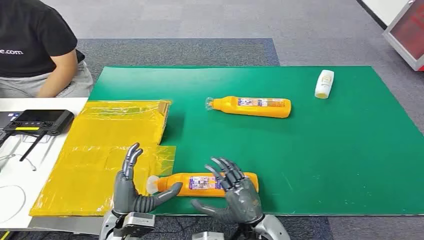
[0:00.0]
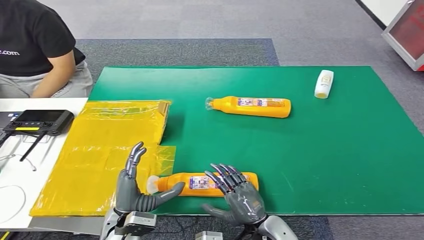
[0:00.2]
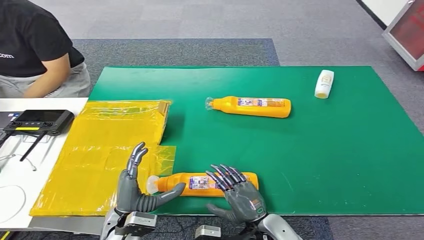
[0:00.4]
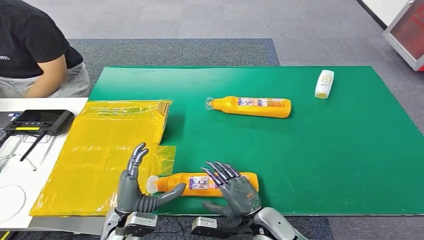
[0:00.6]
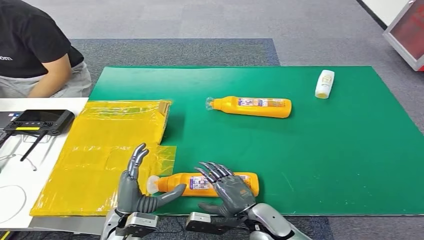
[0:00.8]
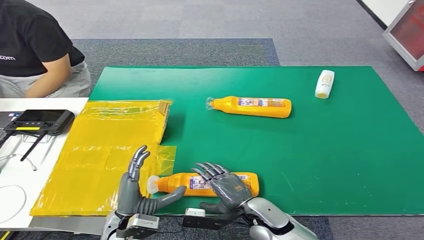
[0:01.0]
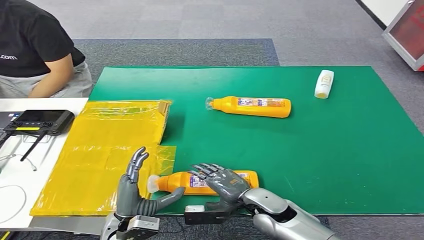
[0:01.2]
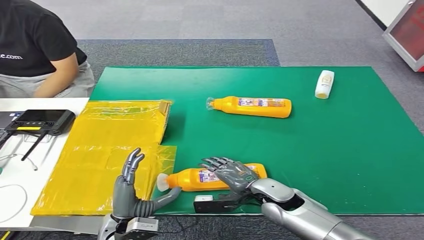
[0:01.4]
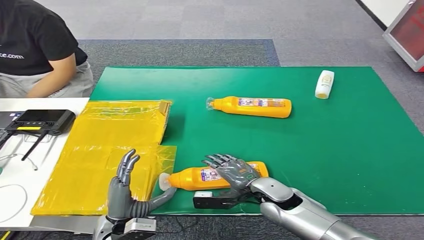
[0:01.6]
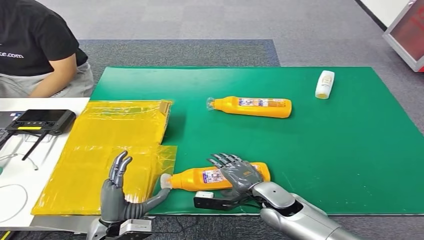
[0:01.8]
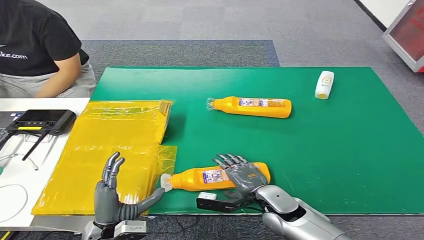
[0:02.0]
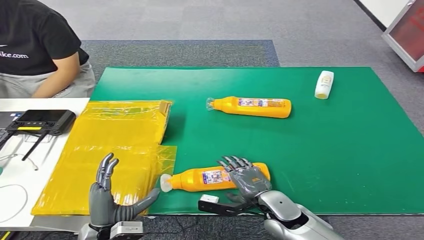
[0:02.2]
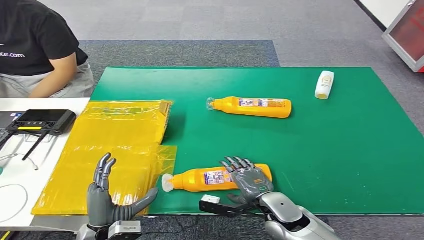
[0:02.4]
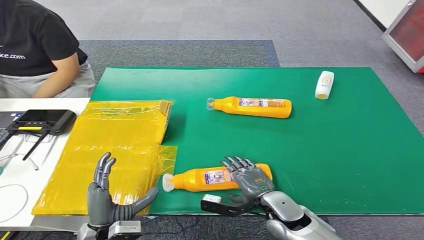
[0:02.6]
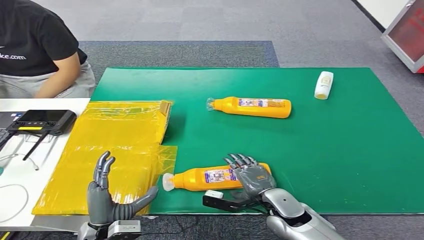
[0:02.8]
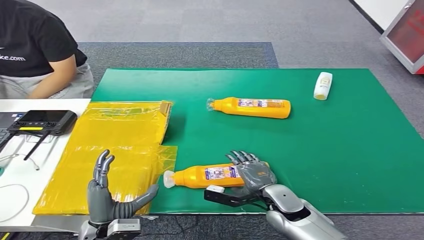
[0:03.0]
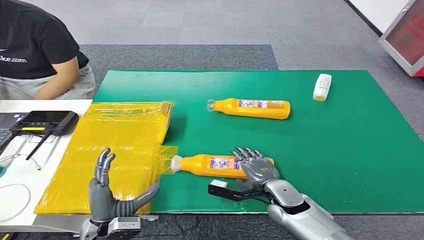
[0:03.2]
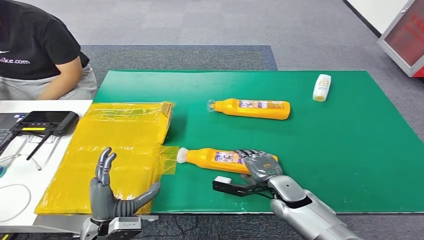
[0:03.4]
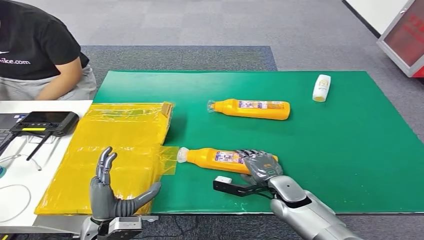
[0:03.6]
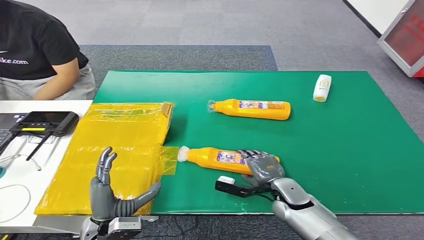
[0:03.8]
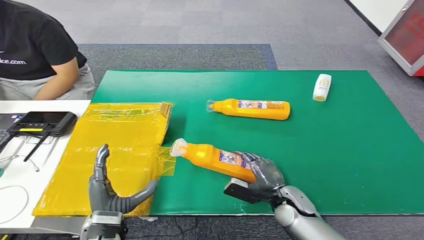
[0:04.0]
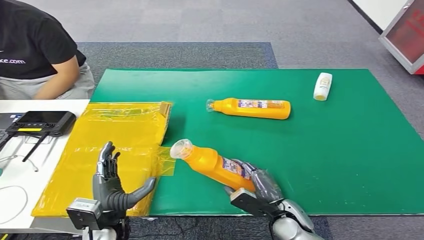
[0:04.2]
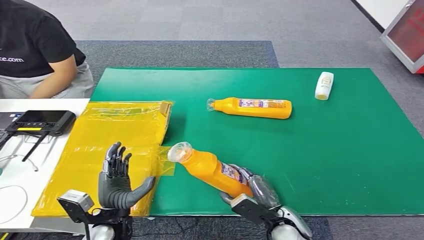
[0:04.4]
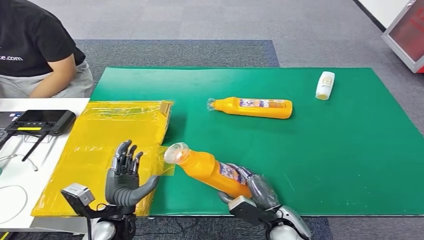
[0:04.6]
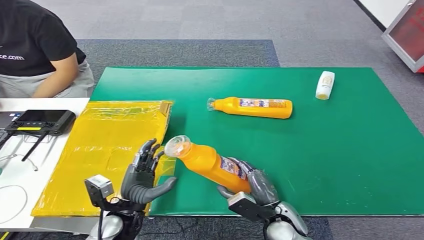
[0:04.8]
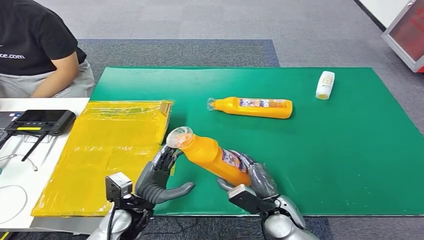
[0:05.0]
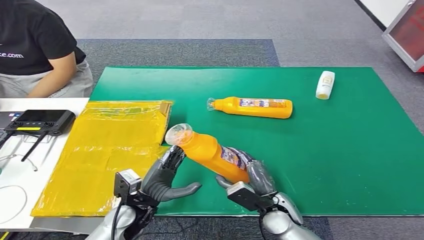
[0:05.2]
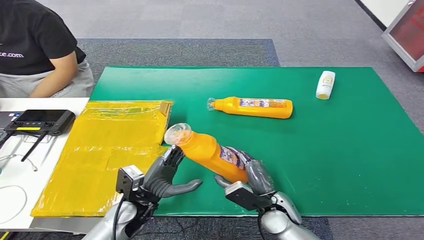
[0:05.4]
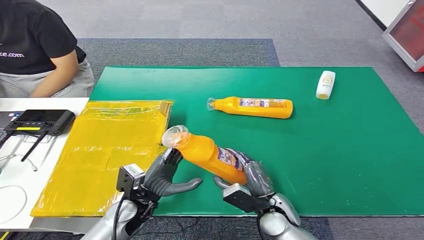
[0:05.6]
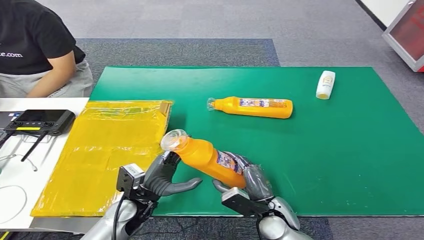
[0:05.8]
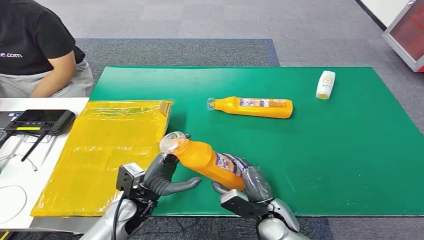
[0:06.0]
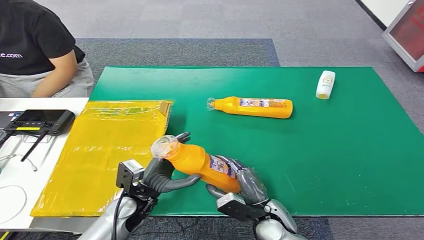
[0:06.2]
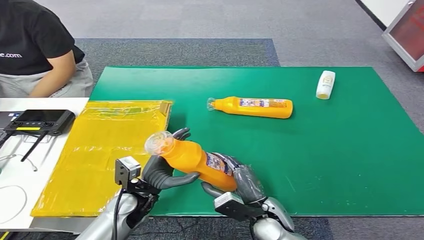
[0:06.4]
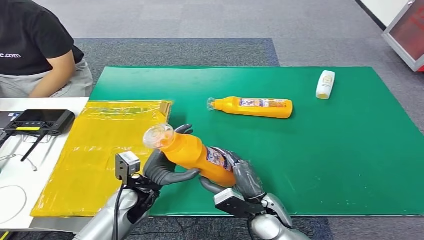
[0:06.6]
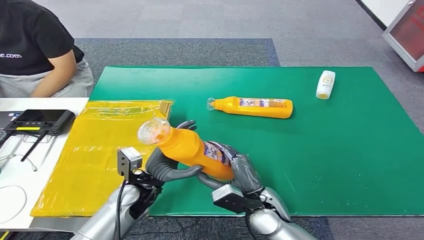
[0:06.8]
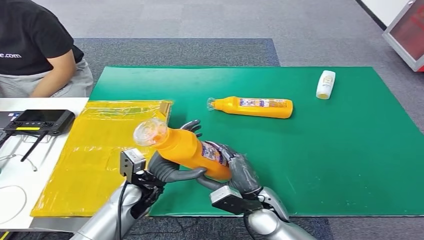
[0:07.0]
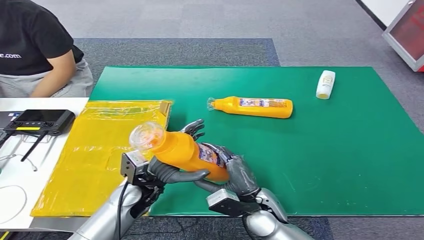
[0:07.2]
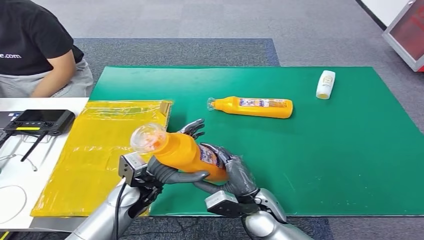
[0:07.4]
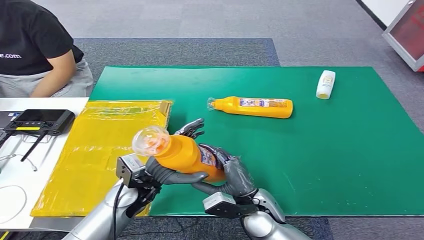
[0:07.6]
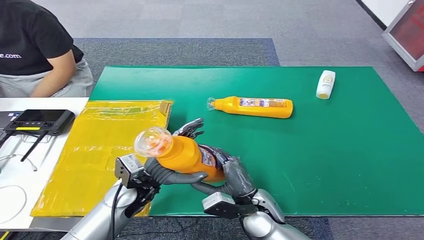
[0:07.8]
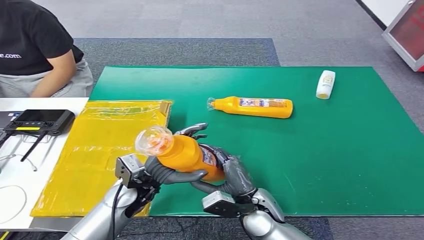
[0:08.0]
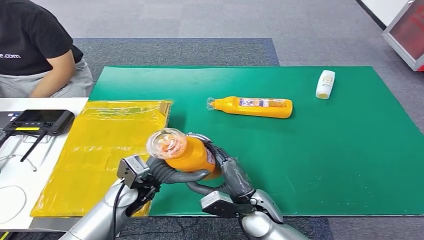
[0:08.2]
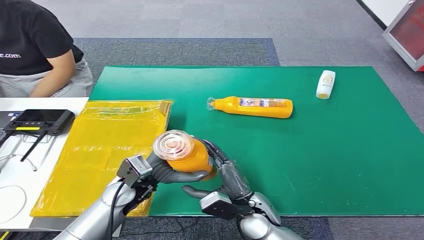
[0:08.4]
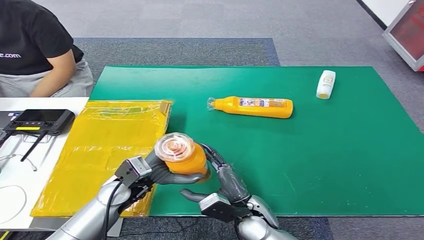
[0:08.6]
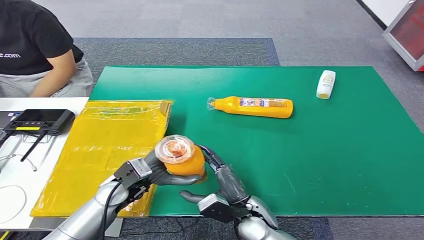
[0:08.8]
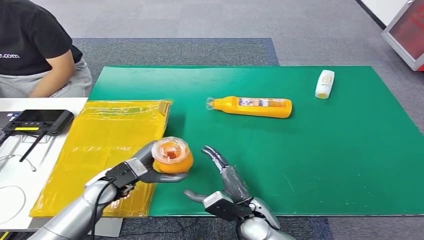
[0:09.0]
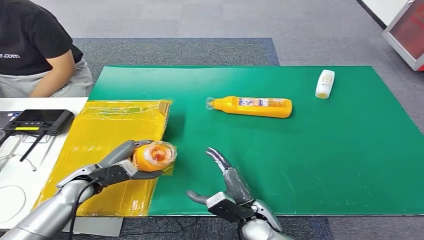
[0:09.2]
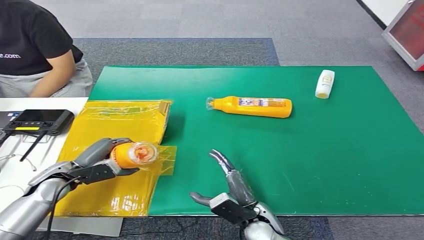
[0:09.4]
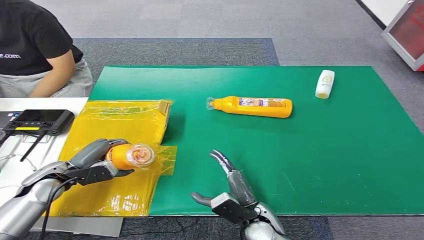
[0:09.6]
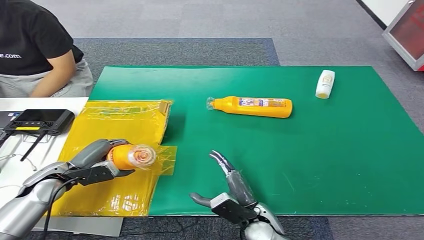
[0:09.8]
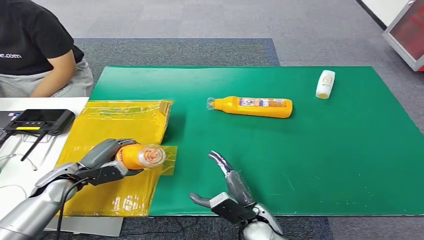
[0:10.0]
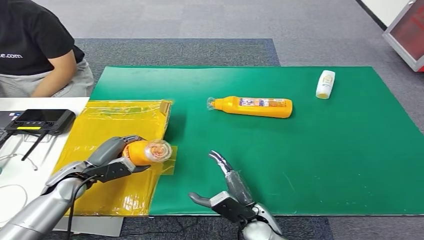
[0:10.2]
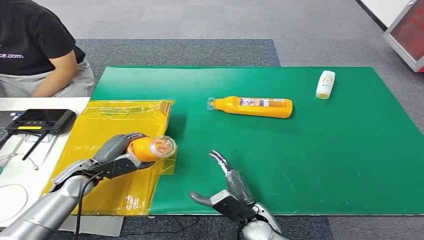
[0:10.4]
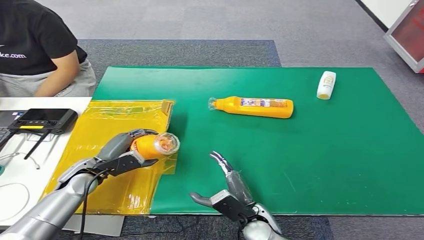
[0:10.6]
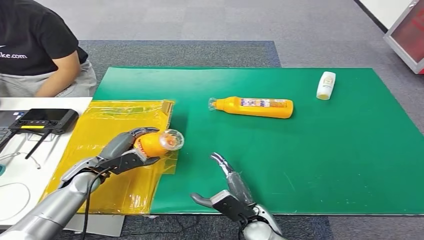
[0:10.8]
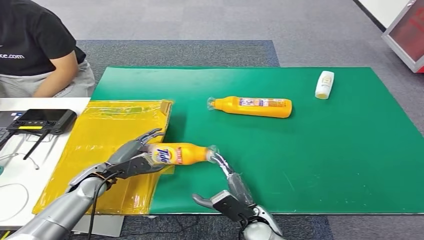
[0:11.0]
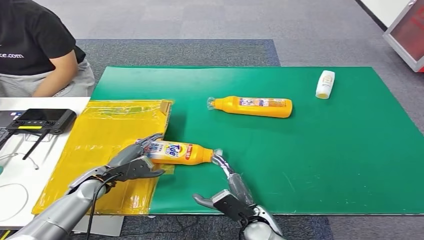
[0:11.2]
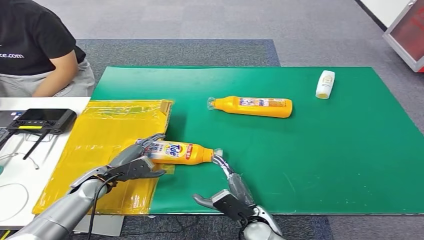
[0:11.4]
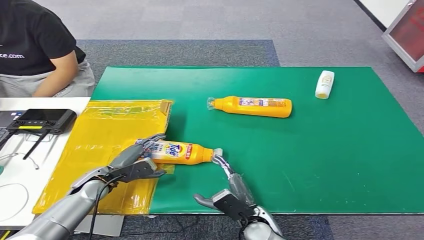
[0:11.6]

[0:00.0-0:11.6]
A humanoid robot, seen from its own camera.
Step, 0:00.0 to 0:04.8: Pick up the bottle from the table.
Step, 0:05.2 to 0:11.6: Turn the bottle to the front side.
0:01.4 to 0:02.8: The hands stay close to where they were, moving slightly.
0:04.4 to 0:05.8: The left hand moves forward, some 5 cm.
0:05.8 to 0:07.2: The left hand changes place by about 5 cm. Meanwhile the right hand shifts by some 5 cm.
0:07.2 to 0:08.8: The hands make only small movements.
0:08.8 to 0:10.2: The left hand moves to the left, roughly 15 cm.
0:10.2 to 0:11.6: The hands make only small movements.

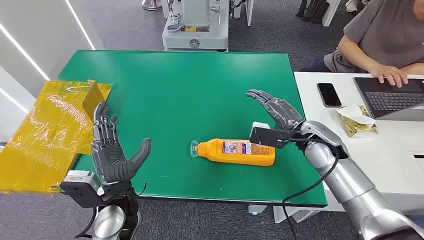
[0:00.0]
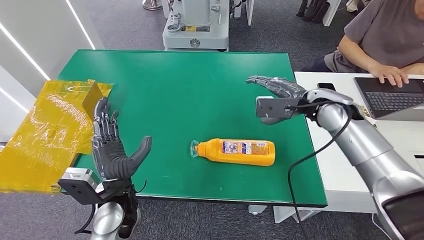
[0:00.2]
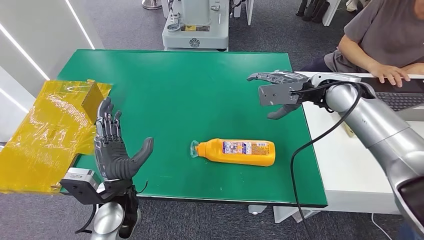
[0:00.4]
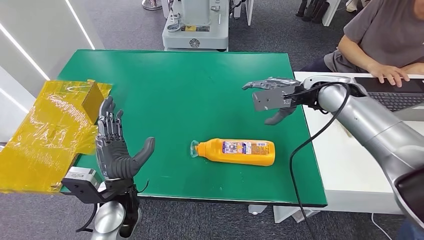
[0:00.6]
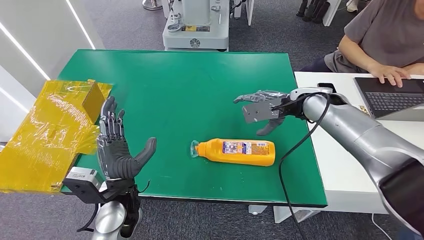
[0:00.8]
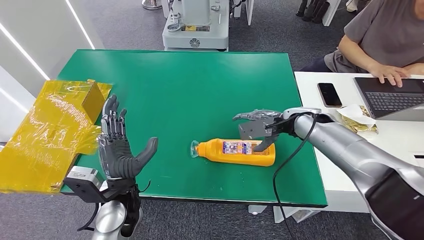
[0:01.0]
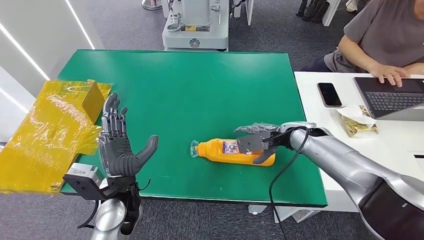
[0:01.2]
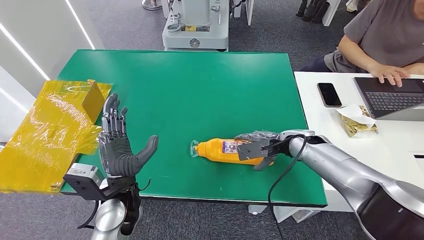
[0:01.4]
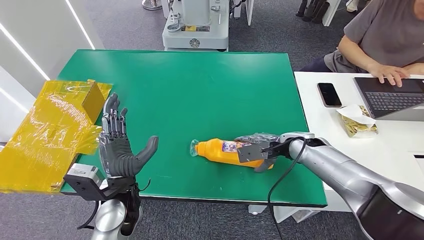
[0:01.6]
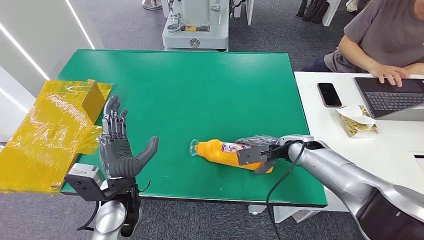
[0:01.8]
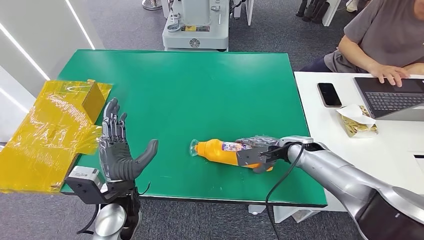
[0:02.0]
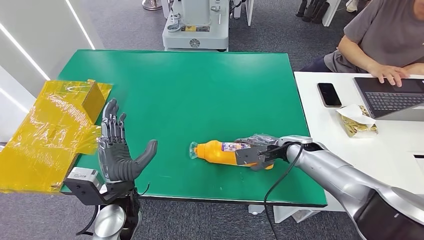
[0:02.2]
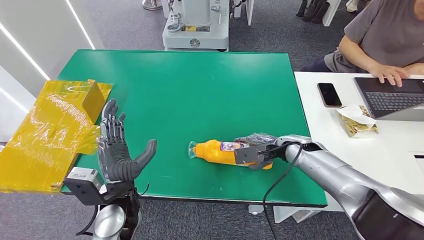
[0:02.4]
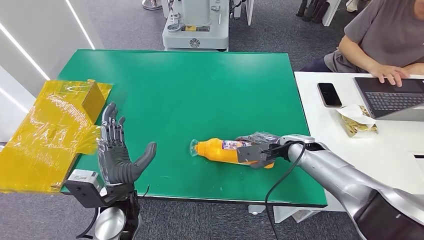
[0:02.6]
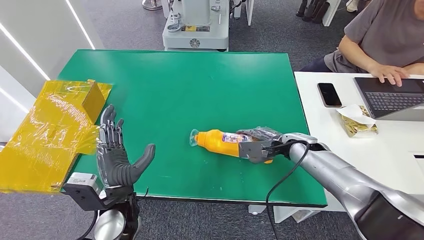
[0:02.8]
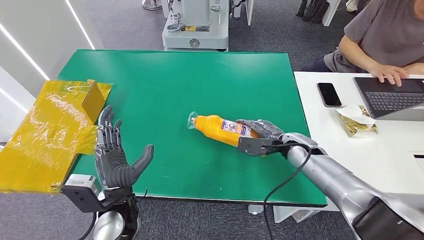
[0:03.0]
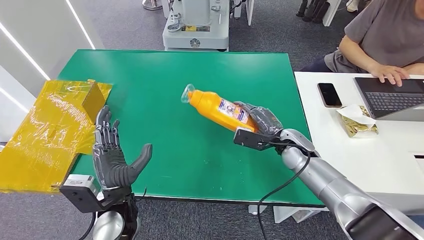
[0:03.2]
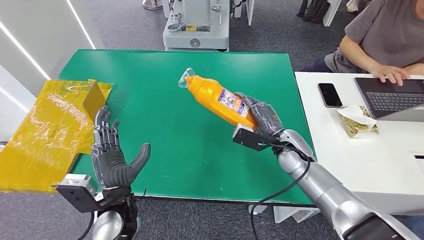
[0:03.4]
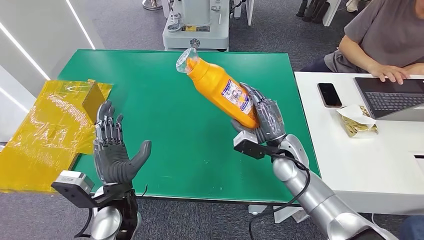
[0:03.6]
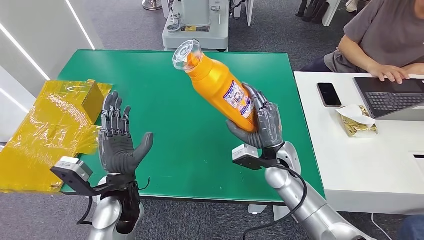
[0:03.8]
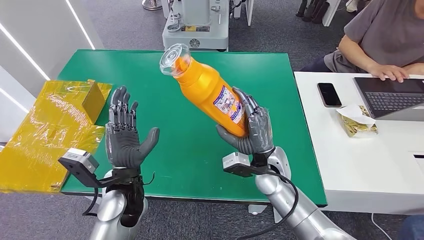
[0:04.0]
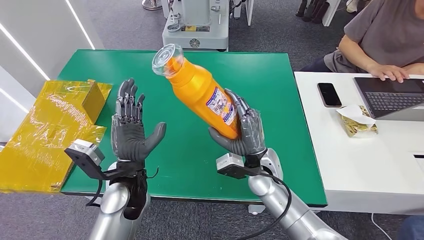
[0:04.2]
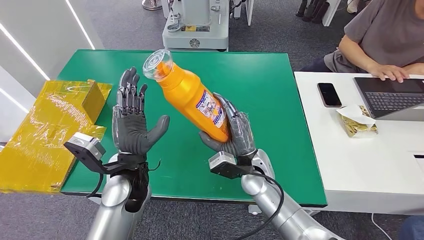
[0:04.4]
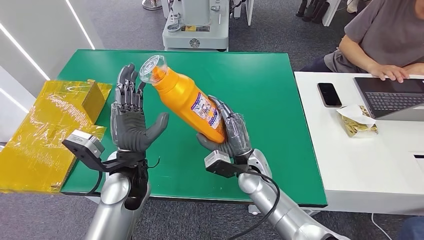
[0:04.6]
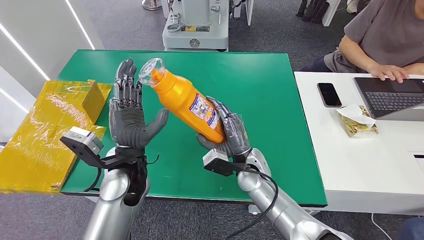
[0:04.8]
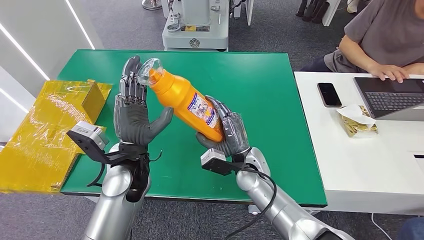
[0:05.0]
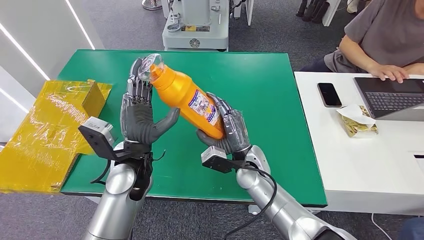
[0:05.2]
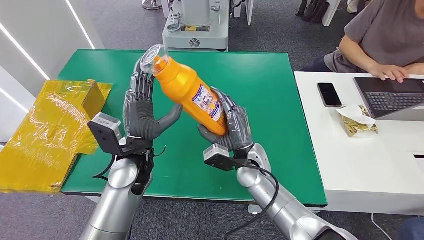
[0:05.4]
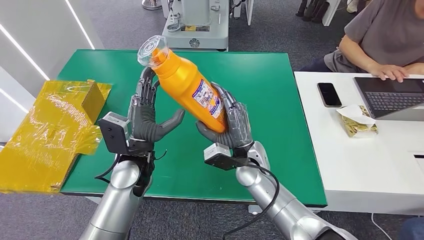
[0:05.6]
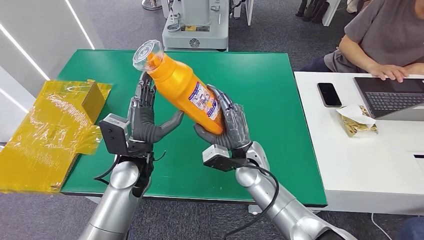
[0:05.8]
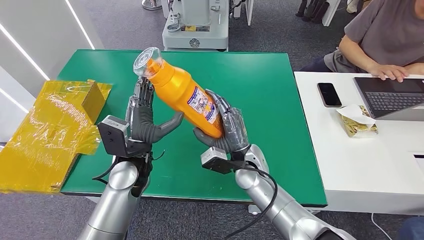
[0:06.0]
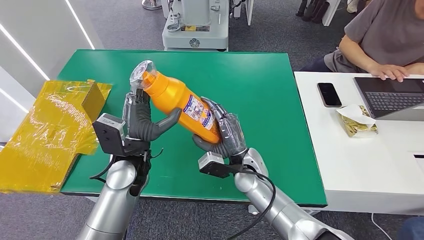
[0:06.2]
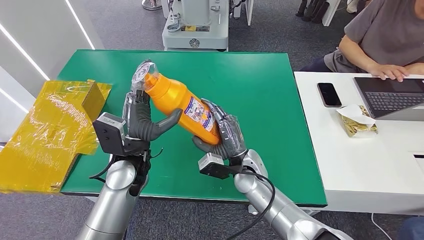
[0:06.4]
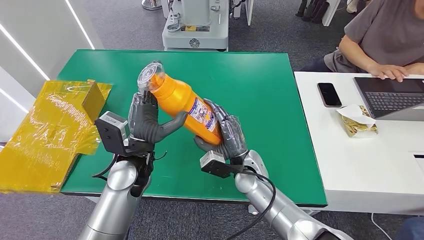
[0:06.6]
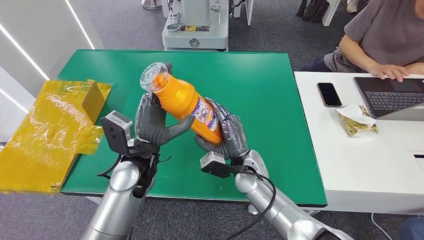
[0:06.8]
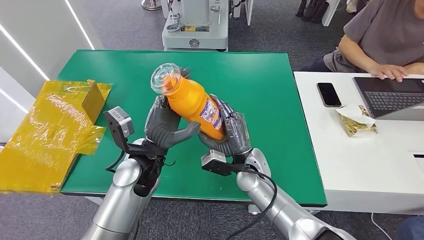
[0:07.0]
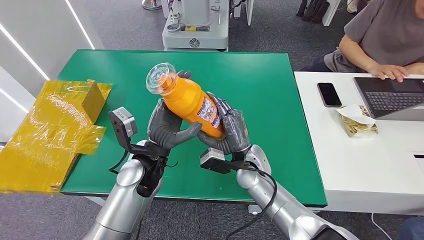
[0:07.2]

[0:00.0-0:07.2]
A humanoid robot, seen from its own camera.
Step, 0:00.0 to 0:03.2: Pick up the bottle from the table.
0:01.4 to 0:02.8: The hands move only a little.
0:04.4 to 0:05.8: The hands move only a little.
